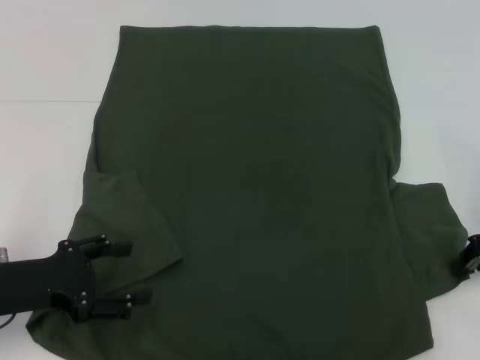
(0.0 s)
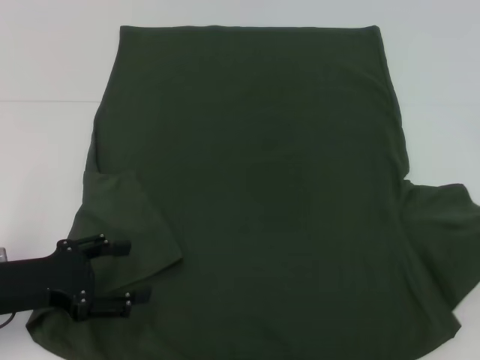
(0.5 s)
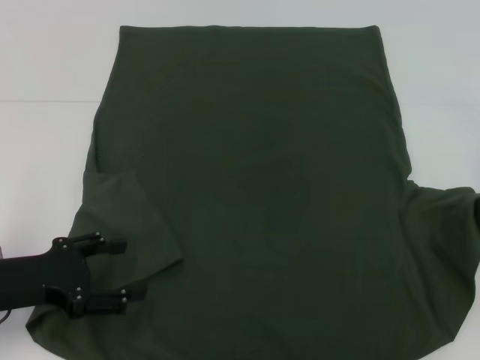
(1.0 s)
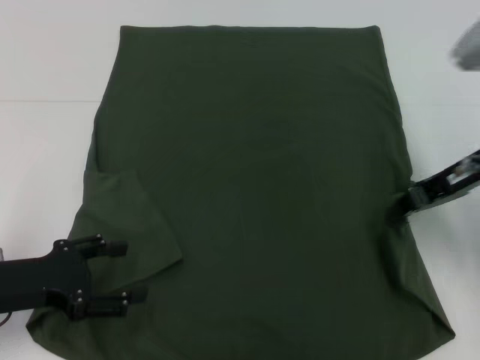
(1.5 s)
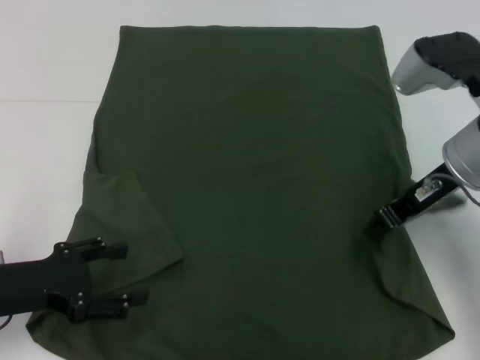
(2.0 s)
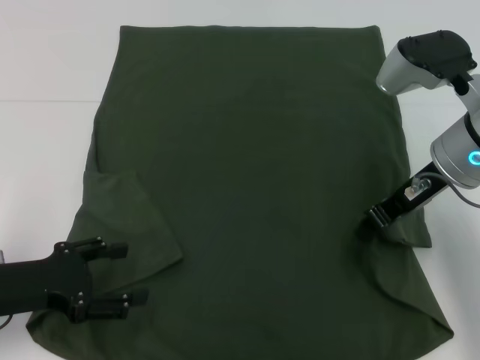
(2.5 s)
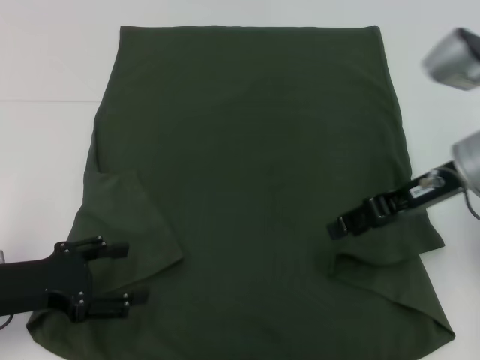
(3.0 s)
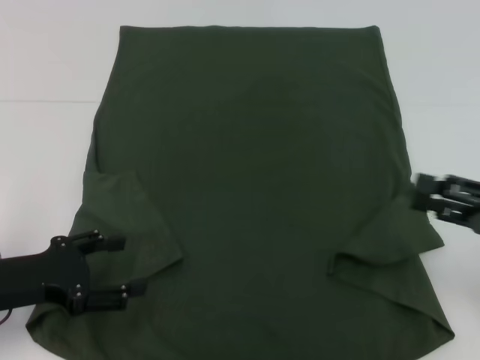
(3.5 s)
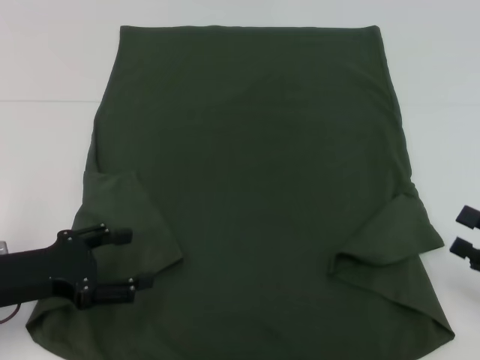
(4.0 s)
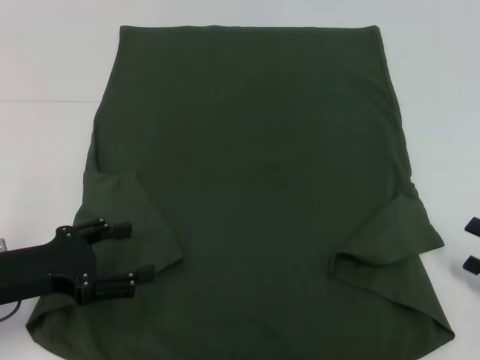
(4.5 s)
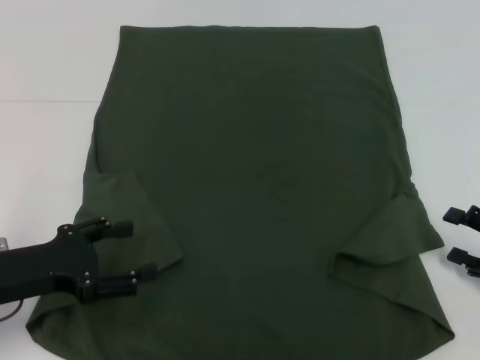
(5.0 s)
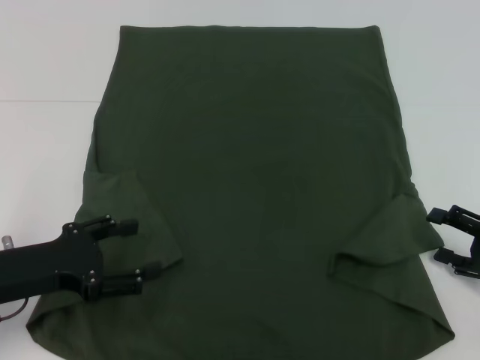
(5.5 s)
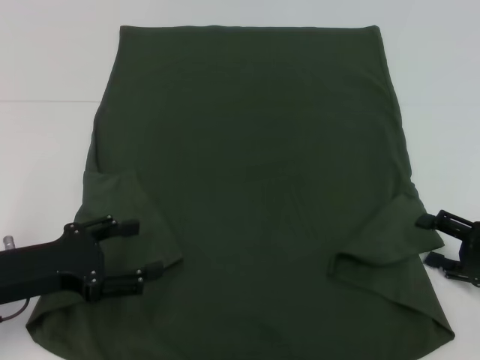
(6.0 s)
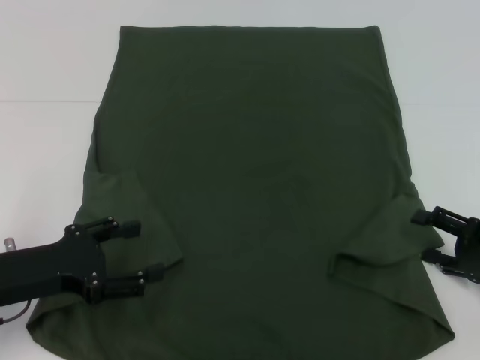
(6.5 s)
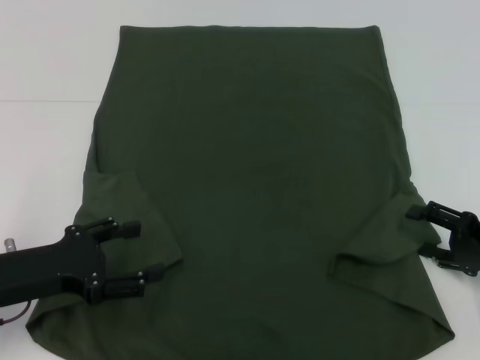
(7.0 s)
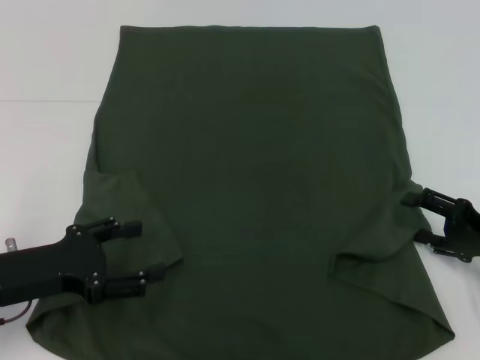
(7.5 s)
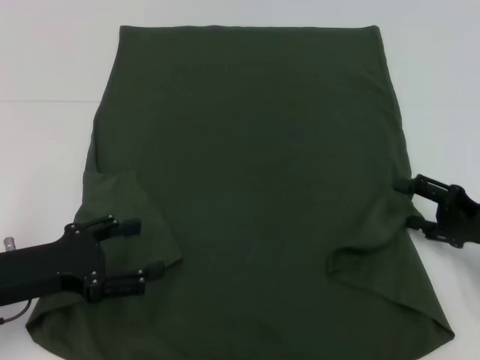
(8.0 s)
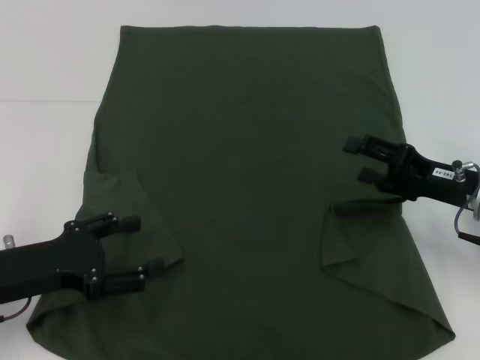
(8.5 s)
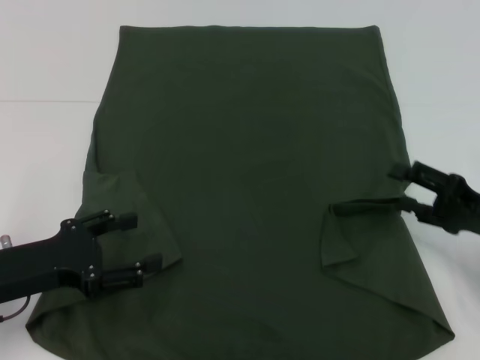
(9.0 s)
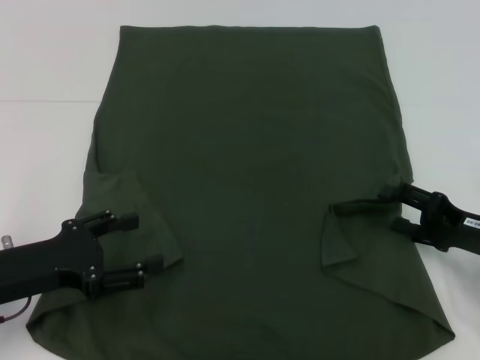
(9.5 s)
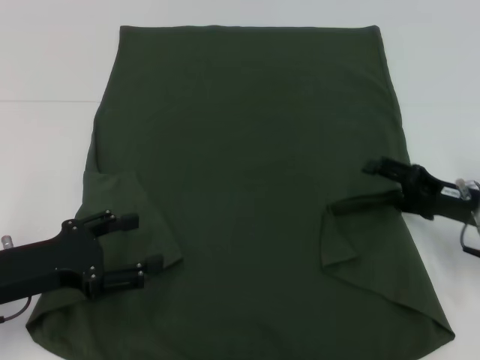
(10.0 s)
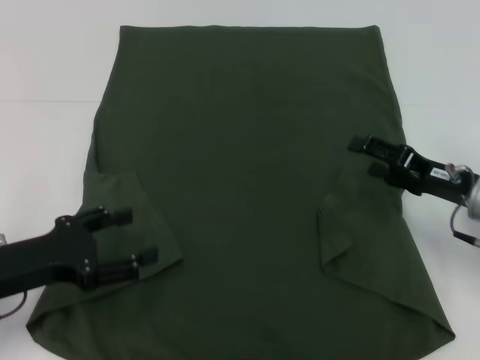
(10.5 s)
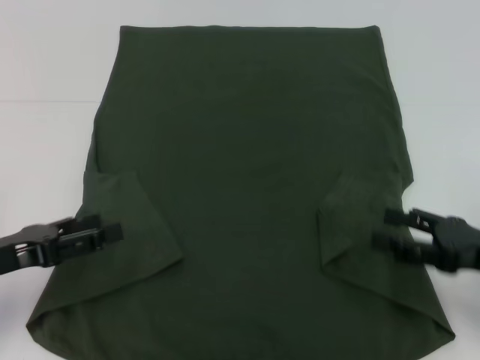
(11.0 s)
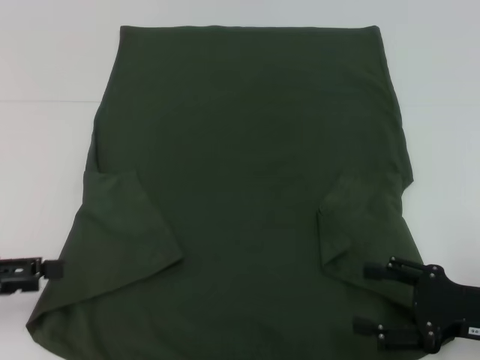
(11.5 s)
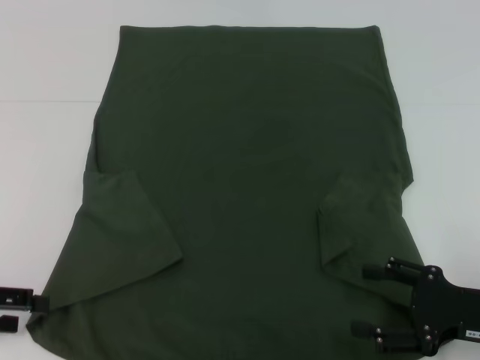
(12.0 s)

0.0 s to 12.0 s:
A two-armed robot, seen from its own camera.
Step, 0.0 to 10.0 s: Fold the bottom right sleeve with your right hand.
0.0 to 2.0 s: The right gripper travels to the left and upward by roughly 15 cm.
2.0 to 4.0 s: The right gripper shifts roughly 25 cm to the right, backward and downward, and opens up.
4.0 to 6.0 s: The right gripper goes some 5 cm forward.
6.0 to 8.0 s: There are only small adjustments of the grippers.
10.0 to 12.0 s: The left gripper is displaced to the left by about 10 cm, while the right gripper heads backward, covering approximately 10 cm.

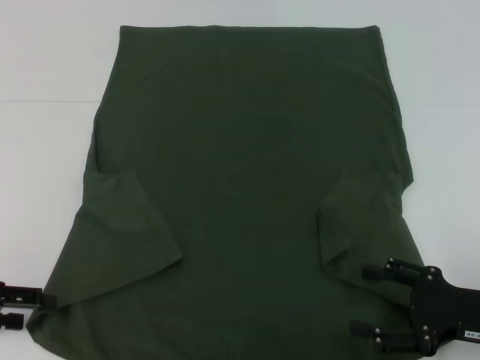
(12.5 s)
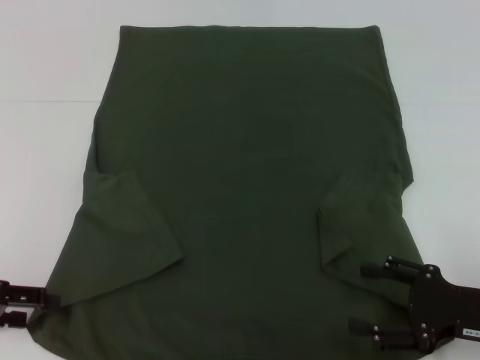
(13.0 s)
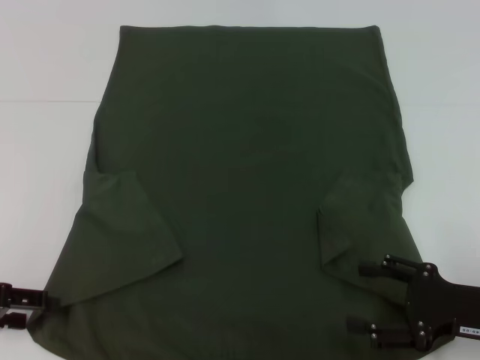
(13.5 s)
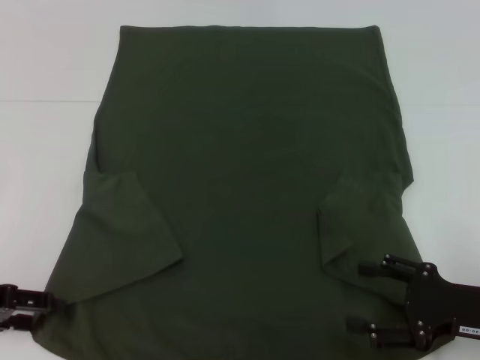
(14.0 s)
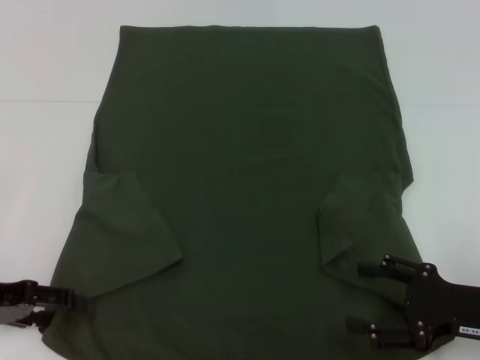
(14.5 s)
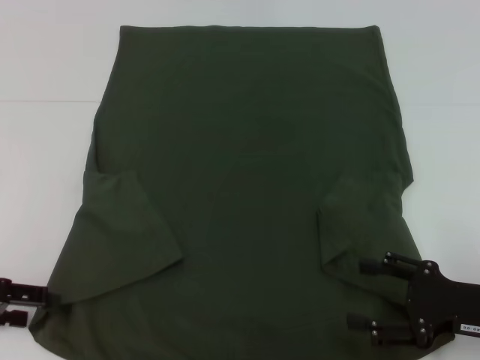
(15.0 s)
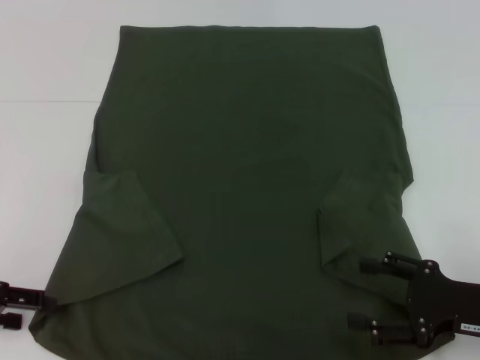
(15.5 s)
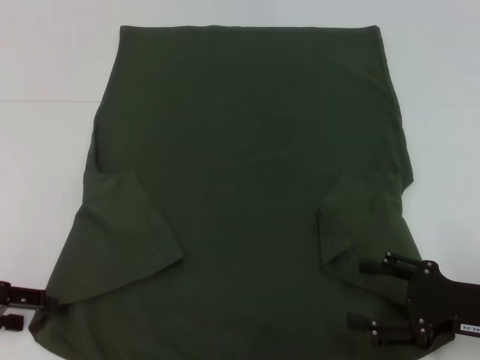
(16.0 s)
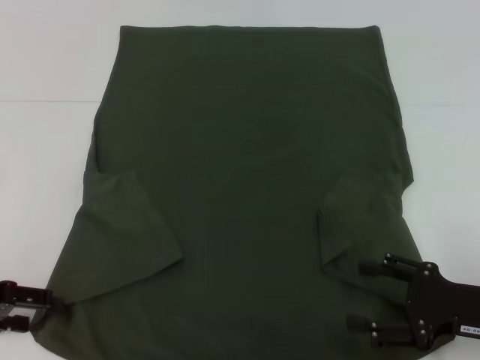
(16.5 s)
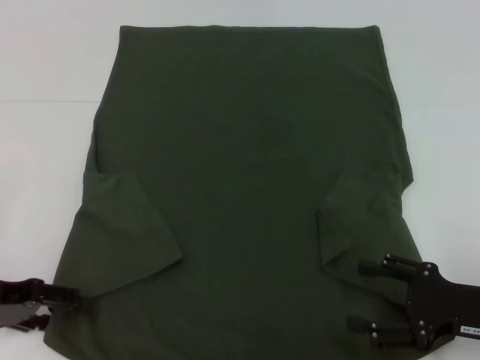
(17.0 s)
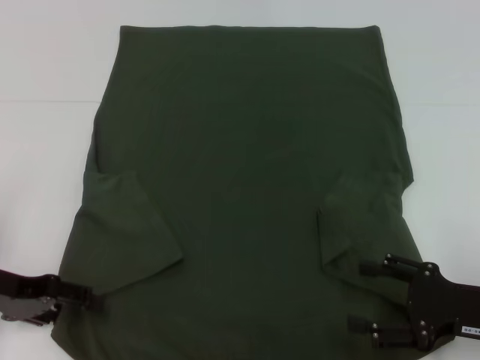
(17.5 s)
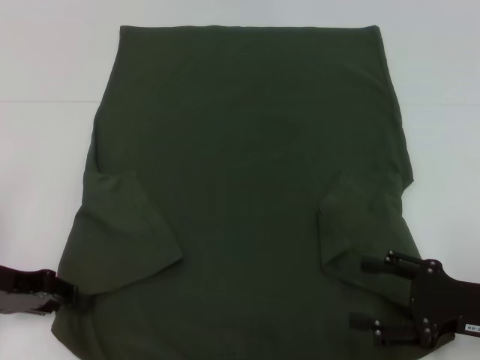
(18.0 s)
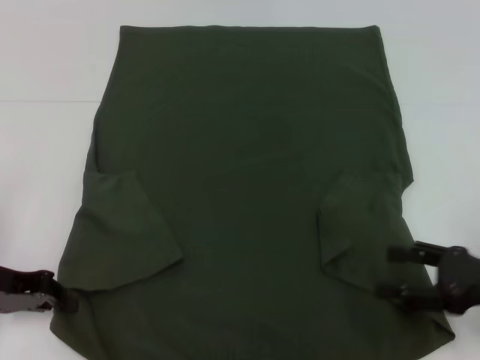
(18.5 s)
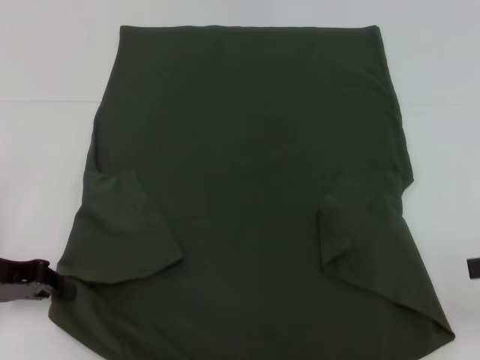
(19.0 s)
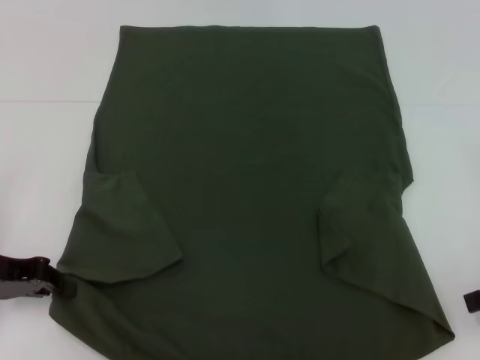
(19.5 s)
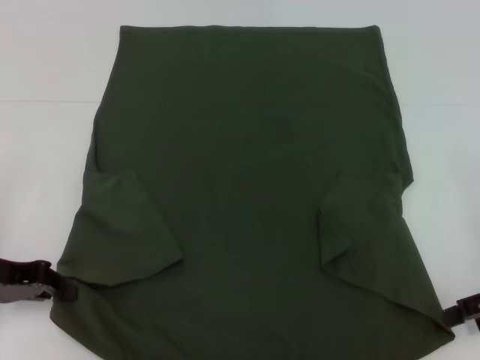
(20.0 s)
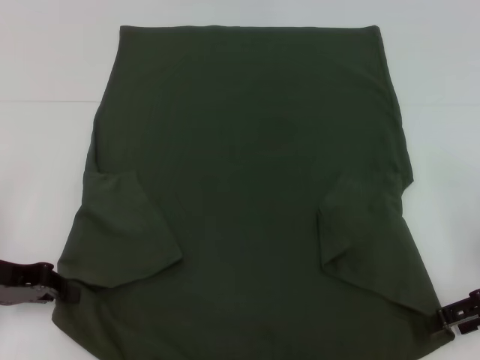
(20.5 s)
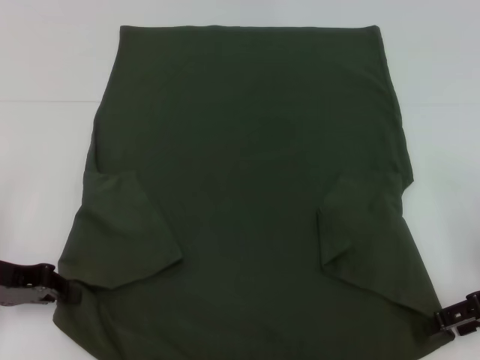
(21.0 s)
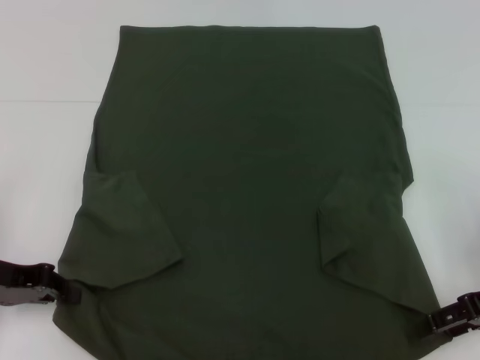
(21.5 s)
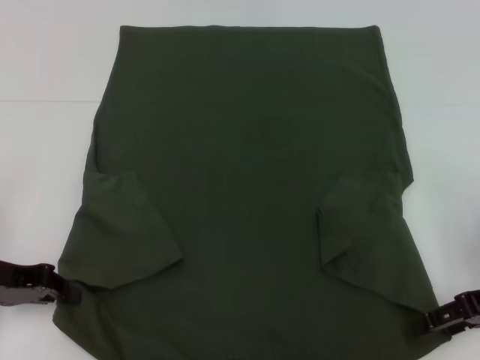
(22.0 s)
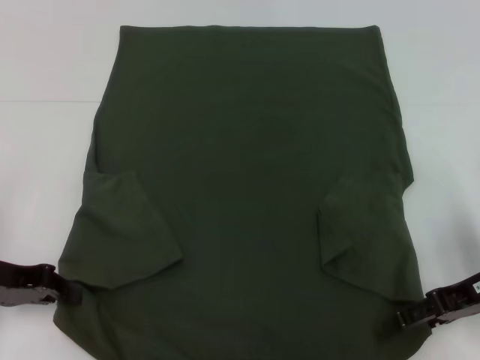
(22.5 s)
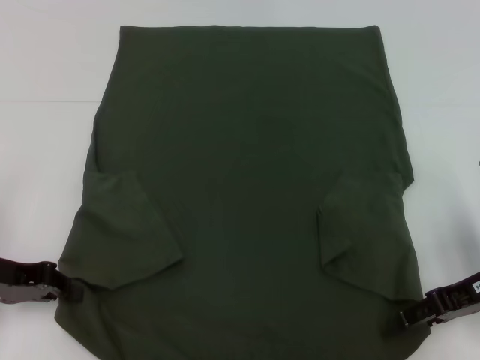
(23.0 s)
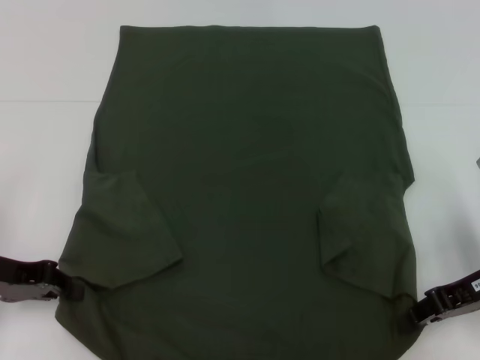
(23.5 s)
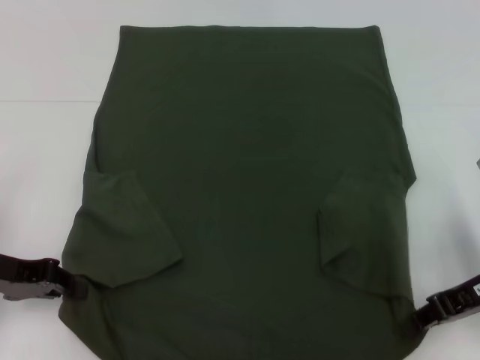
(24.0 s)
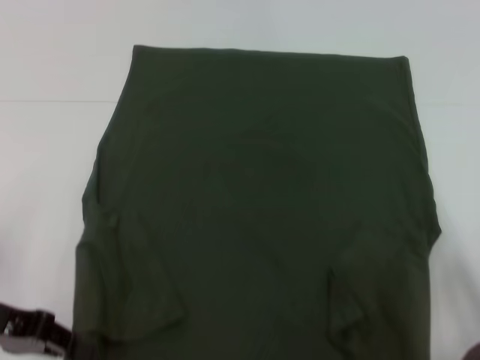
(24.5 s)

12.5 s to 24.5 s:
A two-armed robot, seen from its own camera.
Step, 12.5 to 18.0 s: Grab the bottom left corner with your left hand.
Step, 18.5 to 24.0 s: Grab the bottom right corner with your right hand.
12.5 to 16.5 s: The grippers stay close to where they were, moving slightly.
16.5 to 18.5 s: The left gripper closes.
20.5 to 22.5 s: The grippers make only small movements.
22.5 to 24.5 s: The right gripper closes its fingers.

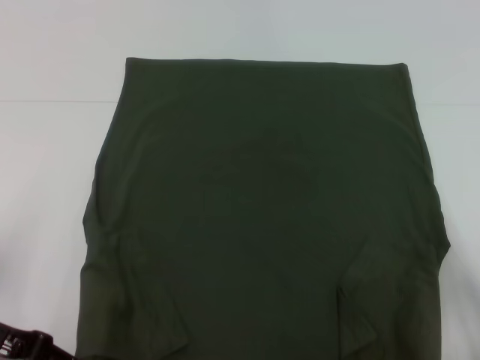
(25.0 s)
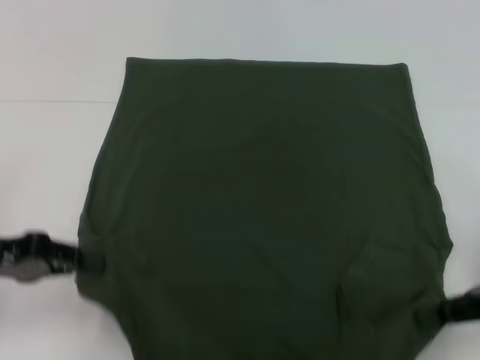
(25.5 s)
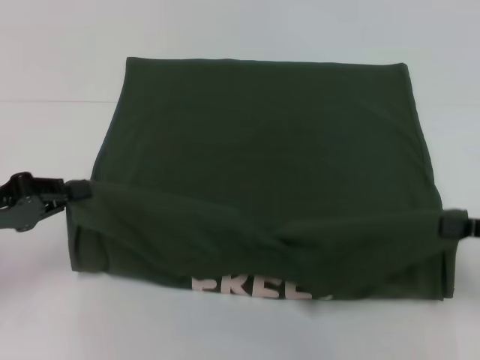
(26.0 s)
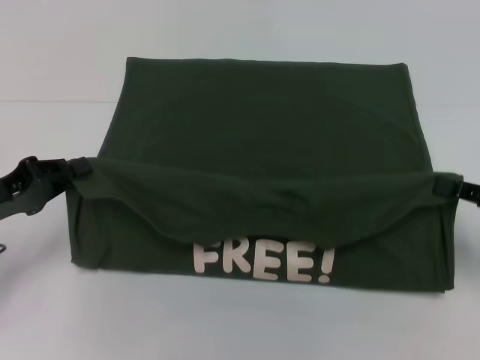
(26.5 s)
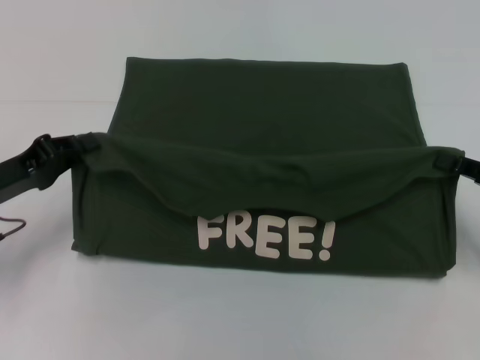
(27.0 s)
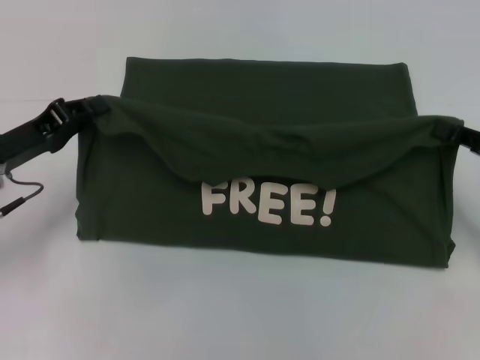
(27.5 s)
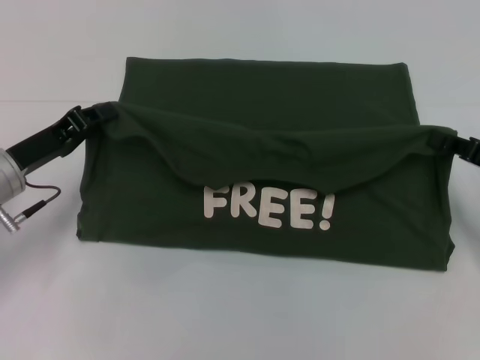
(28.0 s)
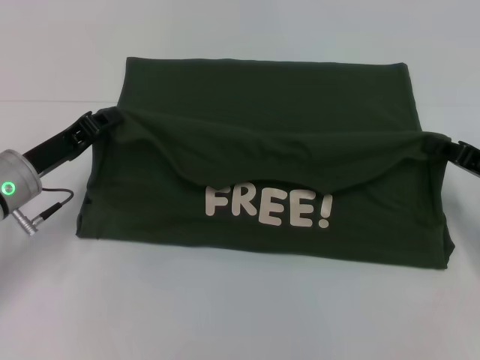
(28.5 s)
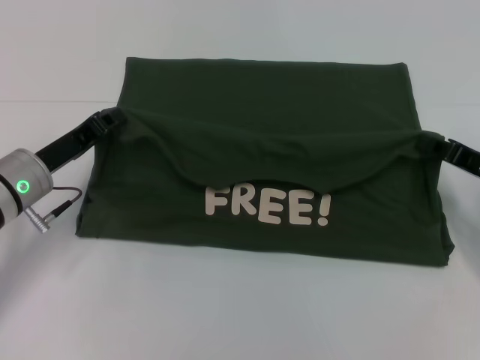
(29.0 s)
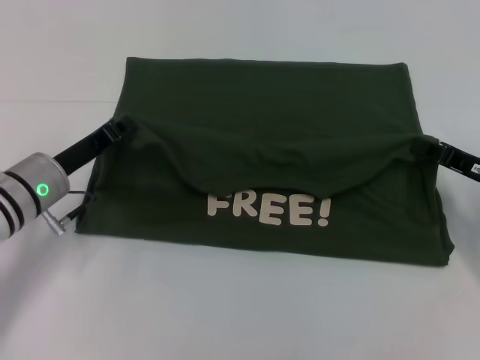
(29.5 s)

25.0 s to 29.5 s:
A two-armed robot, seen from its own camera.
25.0 to 27.0 s: The right gripper is displaced to the right by approximately 5 cm. Meanwhile the left gripper shifts roughly 5 cm forward.
27.0 to 29.5 s: The left gripper is displaced to the right and forward by about 10 cm; the right gripper ends up roughly 5 cm from where it was.
